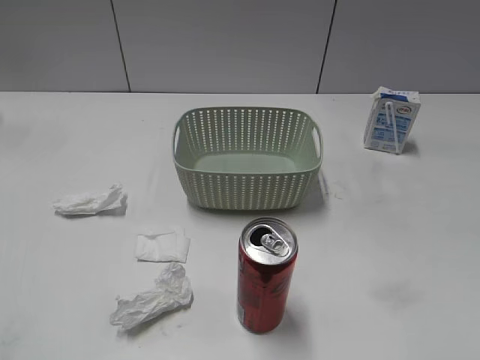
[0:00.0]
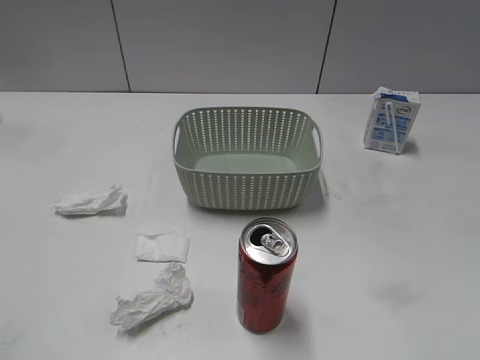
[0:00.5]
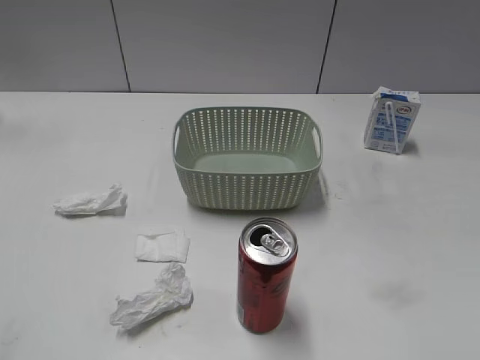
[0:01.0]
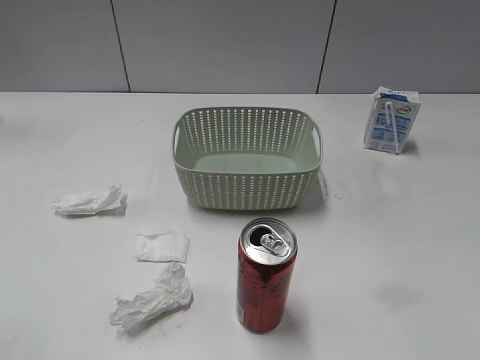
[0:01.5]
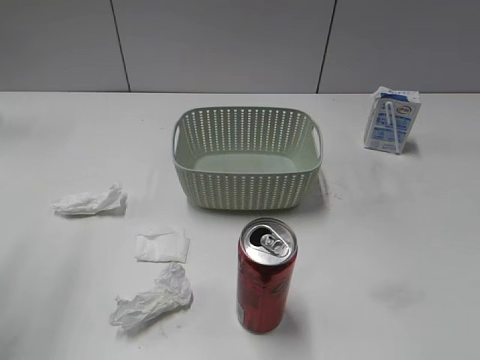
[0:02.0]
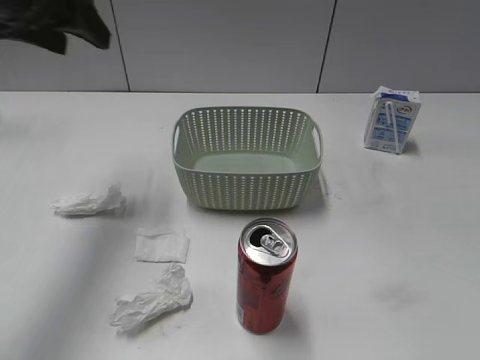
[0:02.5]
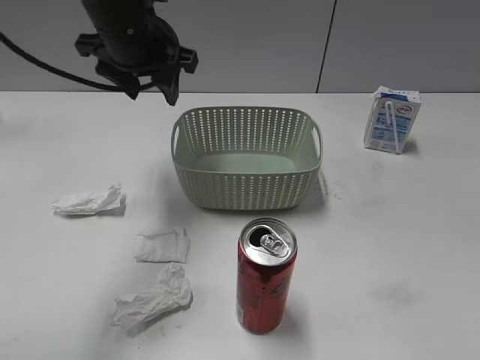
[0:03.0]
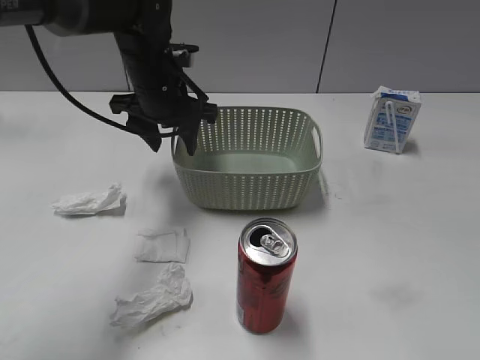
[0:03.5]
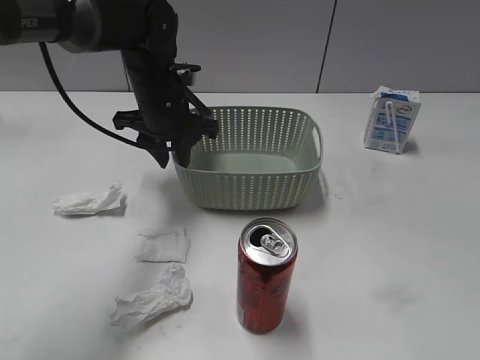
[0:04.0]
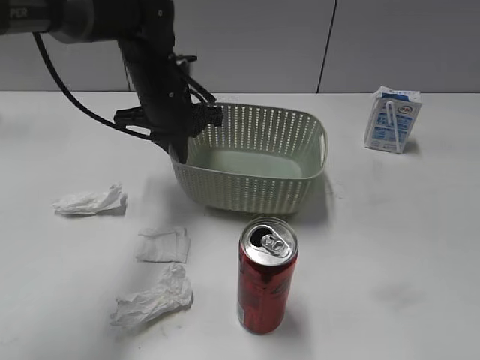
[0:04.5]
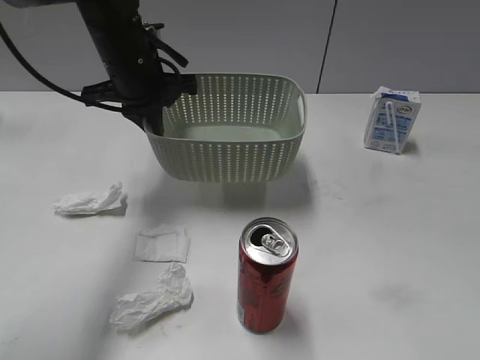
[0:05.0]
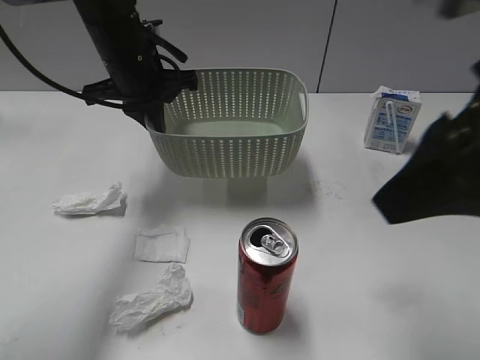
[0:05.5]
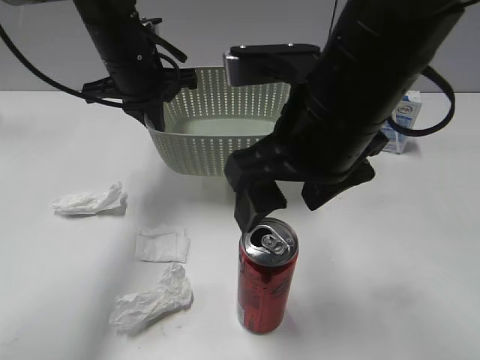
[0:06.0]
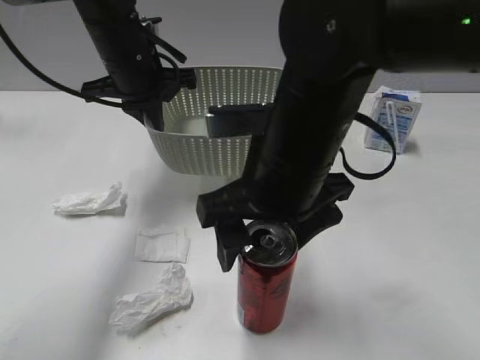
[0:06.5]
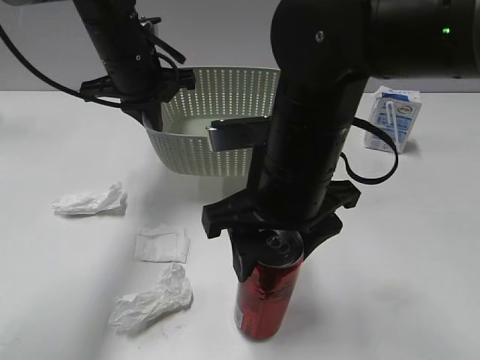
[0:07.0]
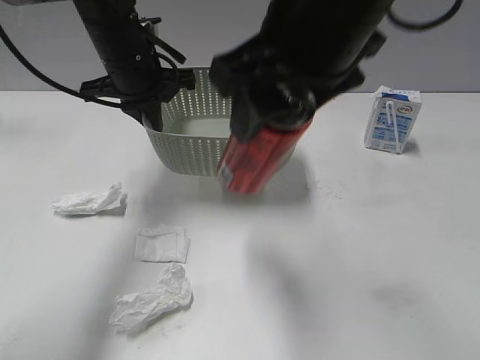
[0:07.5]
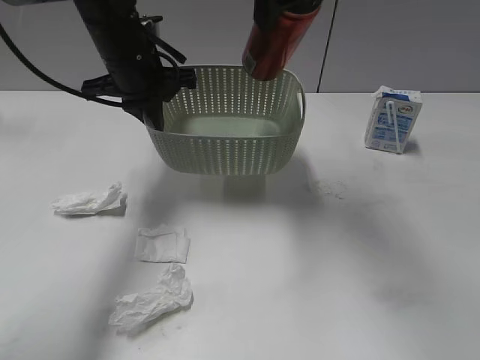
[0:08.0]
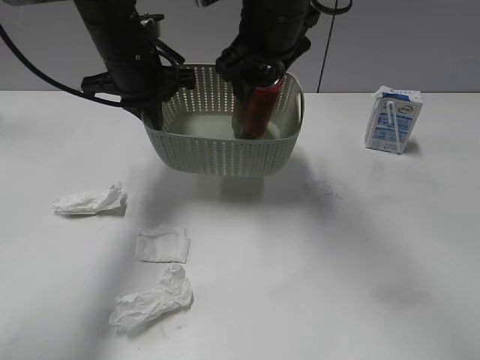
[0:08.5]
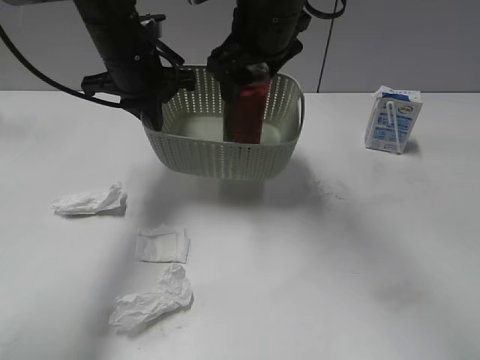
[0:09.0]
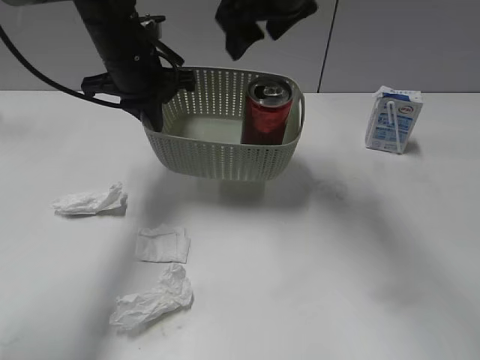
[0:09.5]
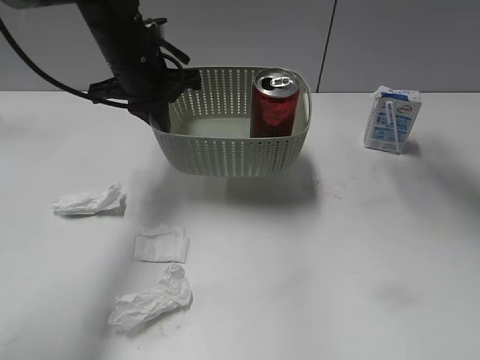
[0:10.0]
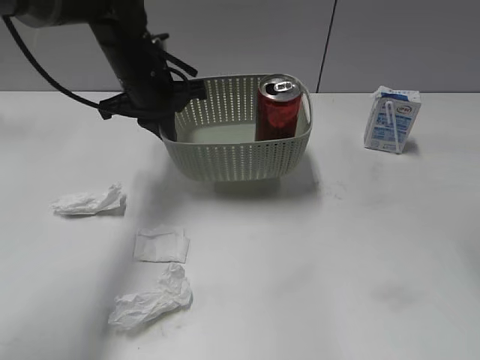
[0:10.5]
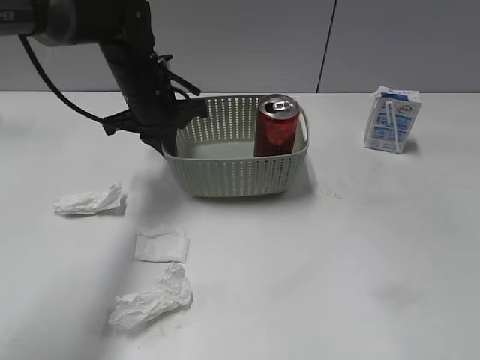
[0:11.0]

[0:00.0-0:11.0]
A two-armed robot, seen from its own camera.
Step, 0:02.5 to 0:04.0: Grasp the basket with left gripper.
Step, 0:04.5 to 0:05.0: Lift the basket with left gripper.
Step, 0:05.5 to 0:06.5: Grasp the cola can with right gripper.
Step, 0:07.0 to 0:09.5: Place the cola can in the basket with right gripper.
0:02.0 to 0:03.5: The left gripper heads forward, to the right and downward, covering roughly 35 cm.
0:03.5 to 0:05.5: The left gripper closes up; the right gripper moves forward and to the left, some 20 cm.
0:05.5 to 0:07.5: The right gripper travels to the left and forward by approximately 10 cm, reaches approximately 10 cm downward, then returns, and closes up.
0:07.5 to 0:09.0: The right gripper moves forward and downward, approximately 15 cm.
0:09.0 to 0:11.0: The left gripper travels downward by some 5 cm. The right gripper moves backward and to the right, about 40 cm.

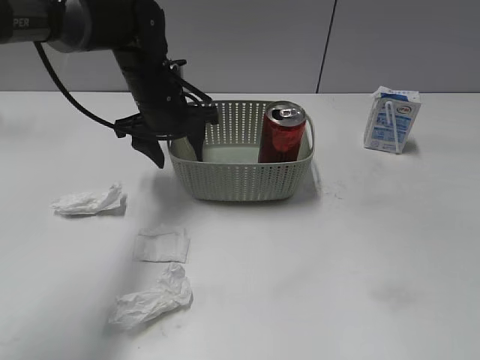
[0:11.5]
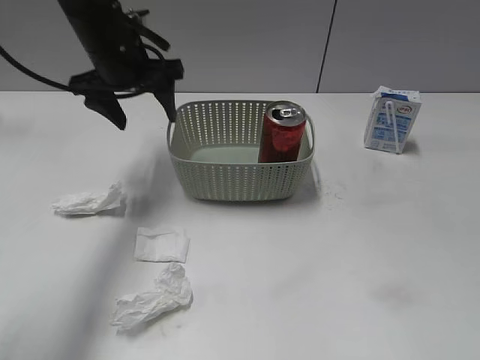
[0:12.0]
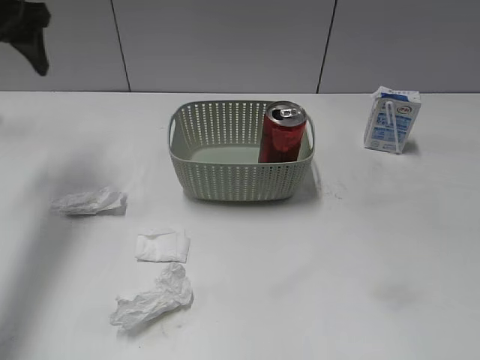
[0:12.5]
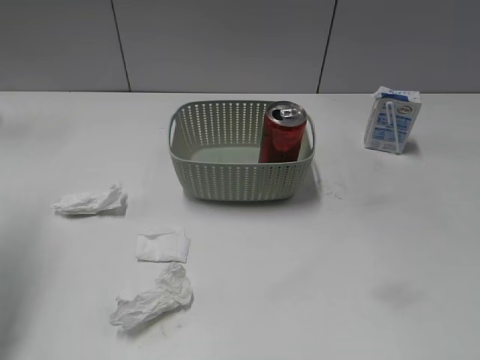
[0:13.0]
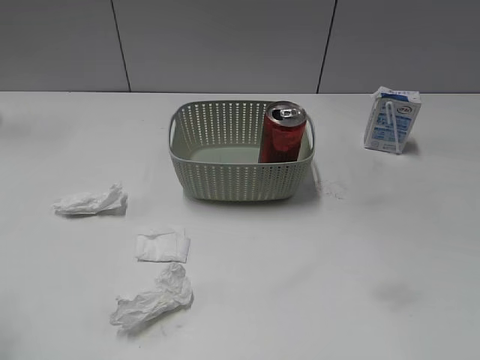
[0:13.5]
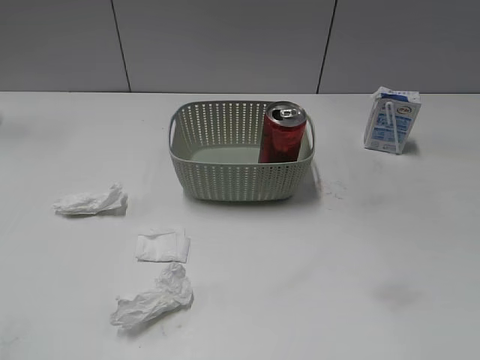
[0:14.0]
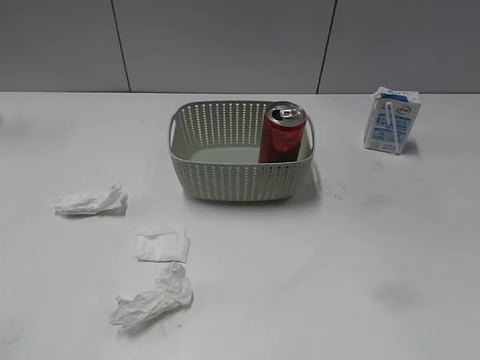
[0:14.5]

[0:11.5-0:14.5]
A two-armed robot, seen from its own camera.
0:11.5 to 0:13.0: The left gripper is displaced to the left, backward and upward by some 30 cm.
0:13.0 to 0:14.5: The left gripper moves backward, some 25 cm.

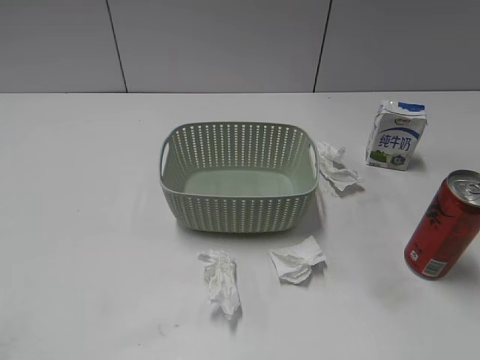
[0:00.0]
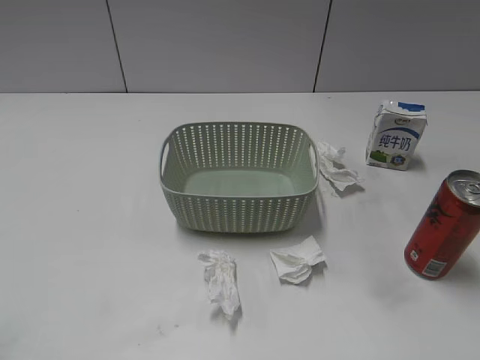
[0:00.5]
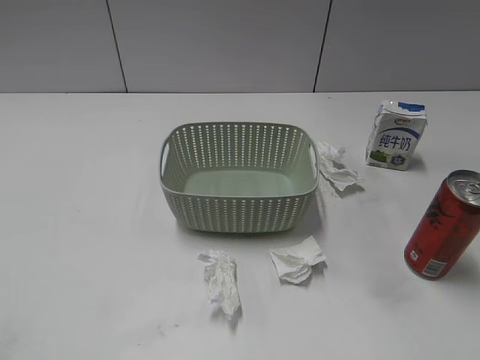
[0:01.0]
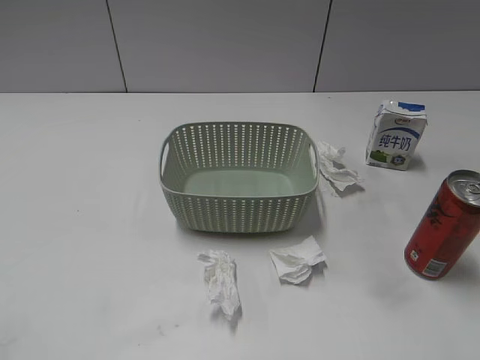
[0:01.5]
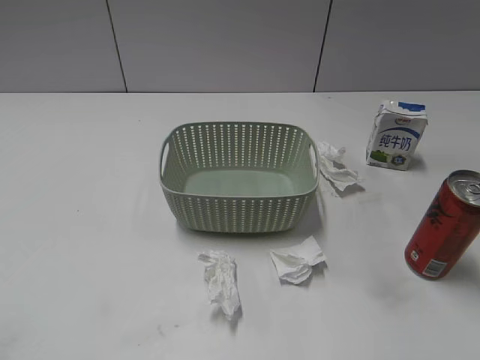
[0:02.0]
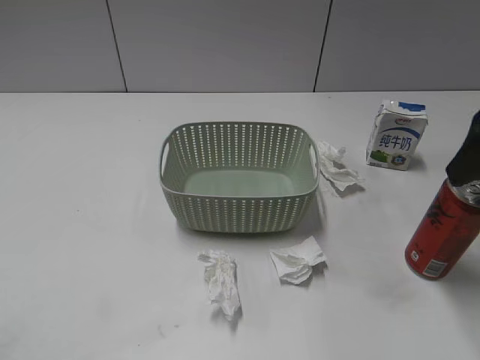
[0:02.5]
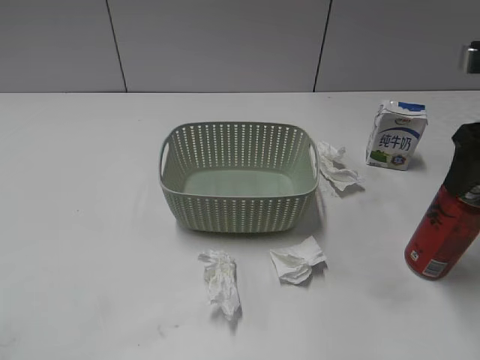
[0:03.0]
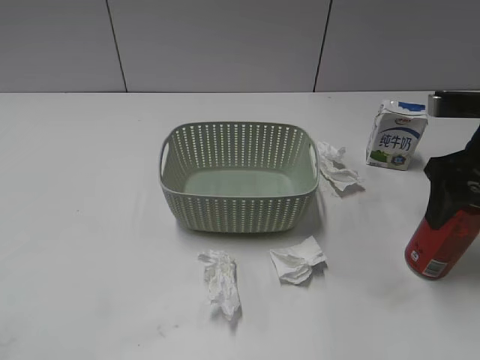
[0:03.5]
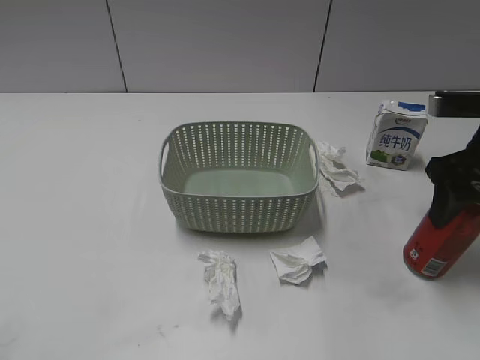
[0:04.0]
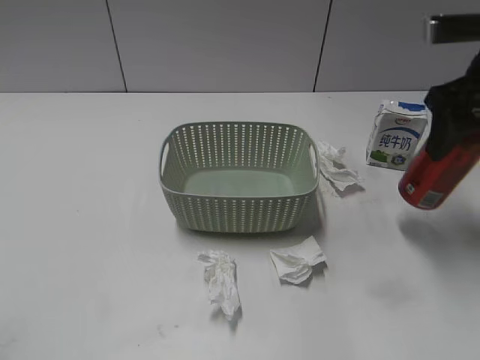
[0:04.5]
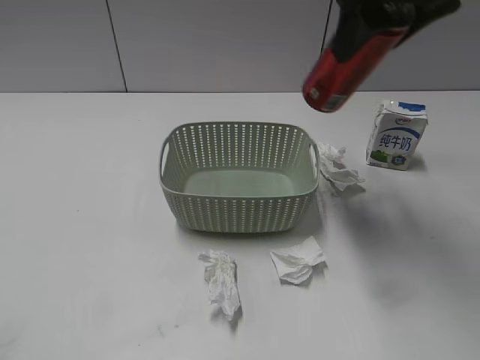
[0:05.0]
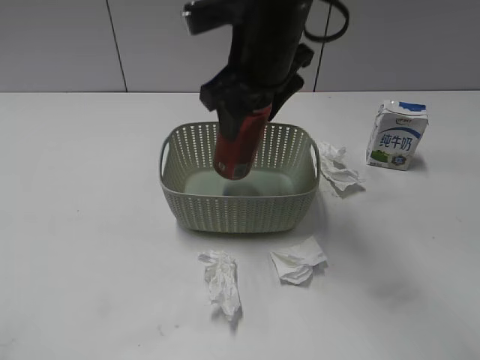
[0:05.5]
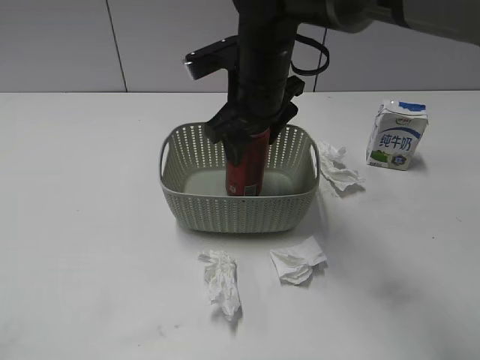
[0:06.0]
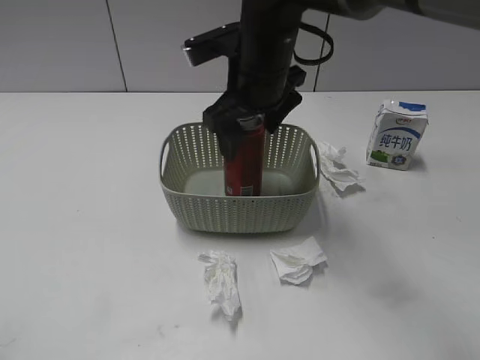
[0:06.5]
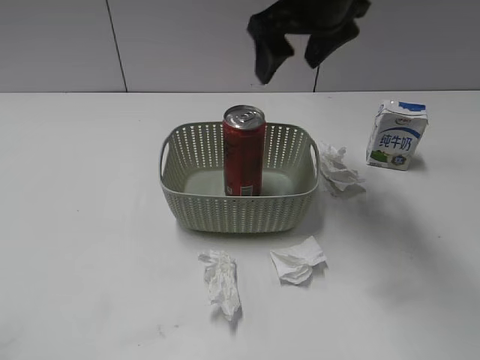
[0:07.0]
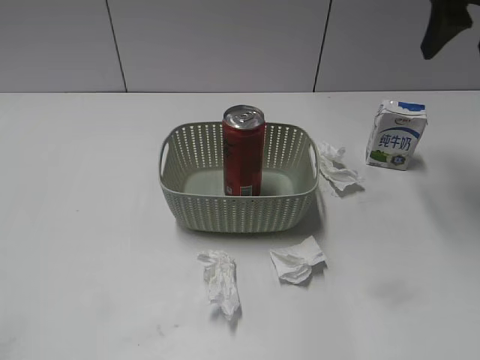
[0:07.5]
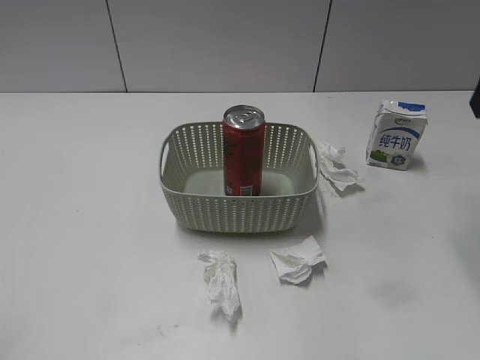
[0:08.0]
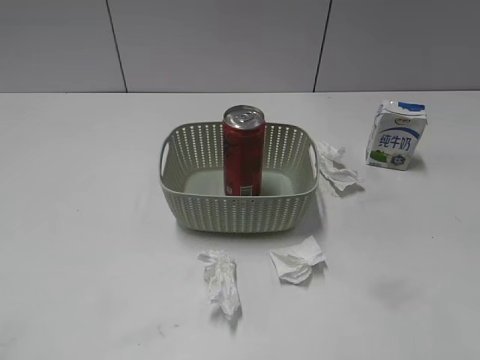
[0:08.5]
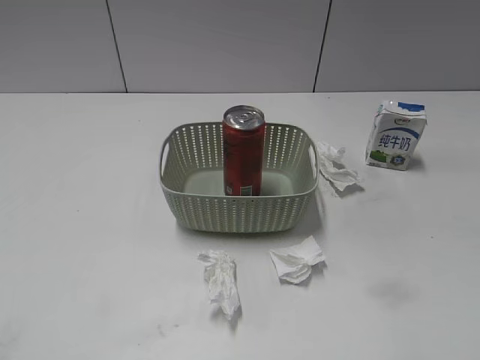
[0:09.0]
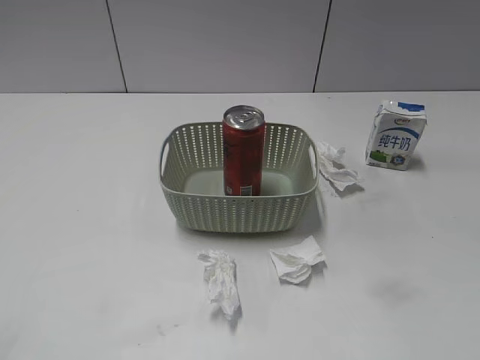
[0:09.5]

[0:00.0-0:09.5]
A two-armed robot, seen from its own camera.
Step, 0:02.5 to 0:03.5: Grasp the cola can with right gripper.
Step, 0:04.0 to 0:06.5: Place the cola can in the basket with right gripper.
0:02.0 to 0:04.0: The right gripper moves forward and downward, some 15 cm, and closes its fingers.
0:04.0 to 0:05.5: The right gripper heads to the left, covering approximately 25 cm.
0:05.5 to 0:07.5: The right gripper is displaced to the right by about 25 cm, and opens.
0:07.5 to 0:09.5: The right gripper is displaced backward by some 35 cm.

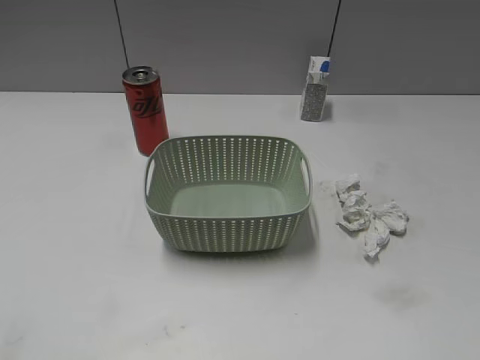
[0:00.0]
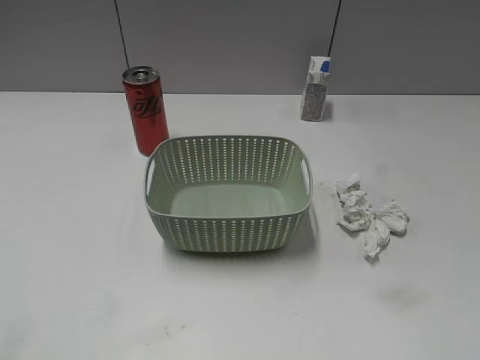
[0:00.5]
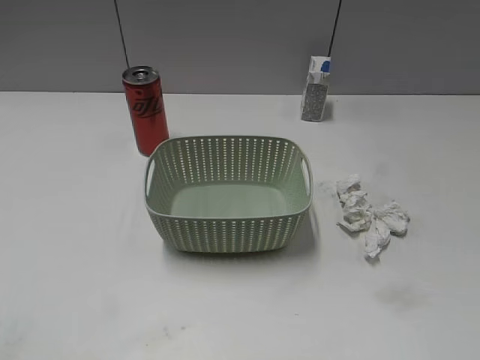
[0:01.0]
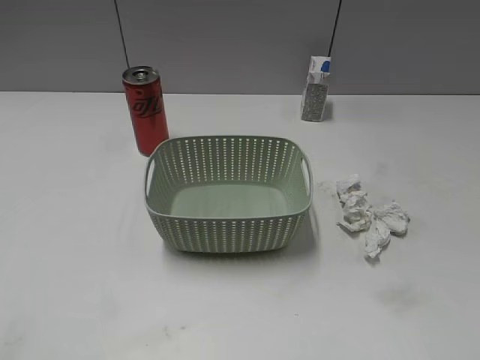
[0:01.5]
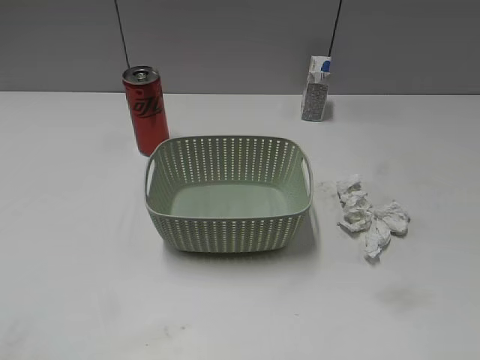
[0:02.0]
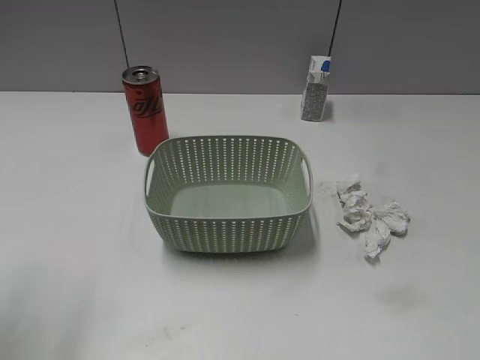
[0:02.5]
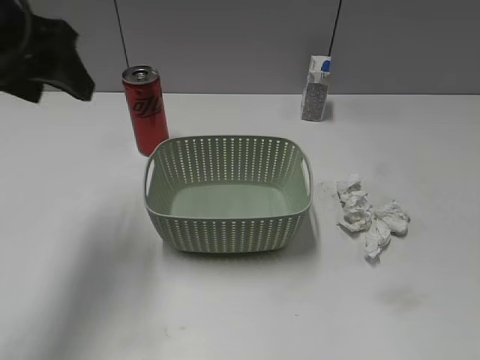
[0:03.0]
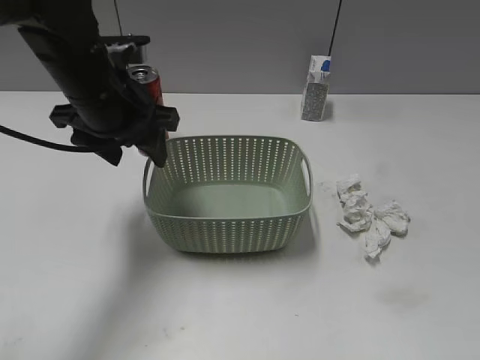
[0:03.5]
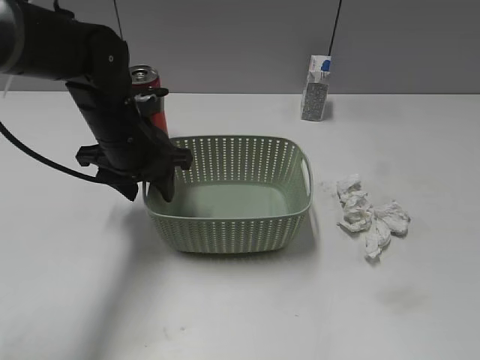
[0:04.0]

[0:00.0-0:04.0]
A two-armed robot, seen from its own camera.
0:02.0 to 0:04.0: The left gripper shifts about 40 cm forward, to the right and downward.
